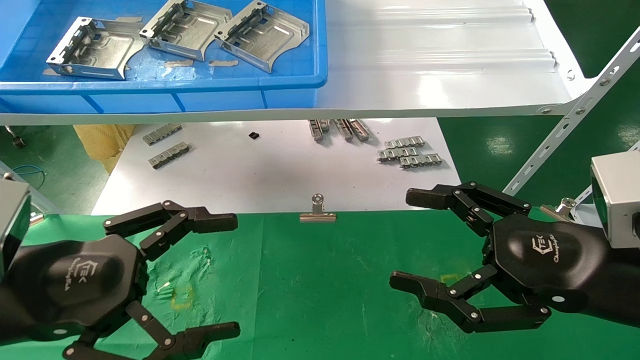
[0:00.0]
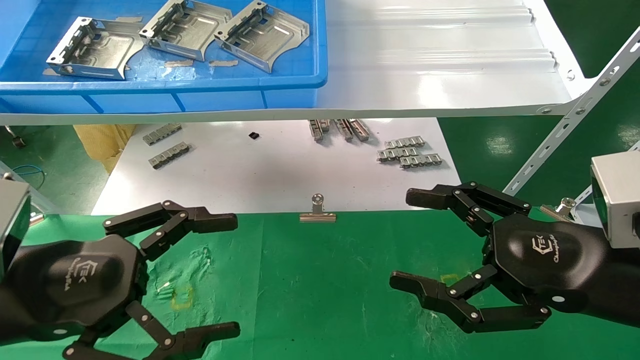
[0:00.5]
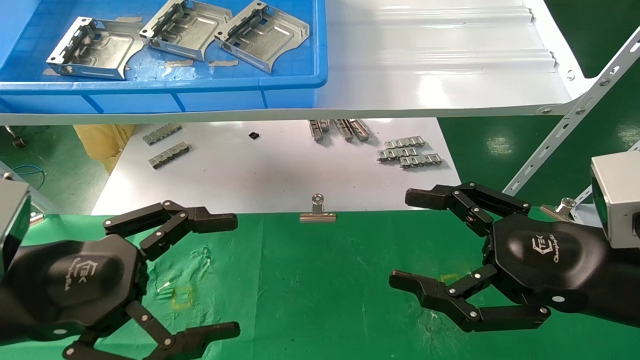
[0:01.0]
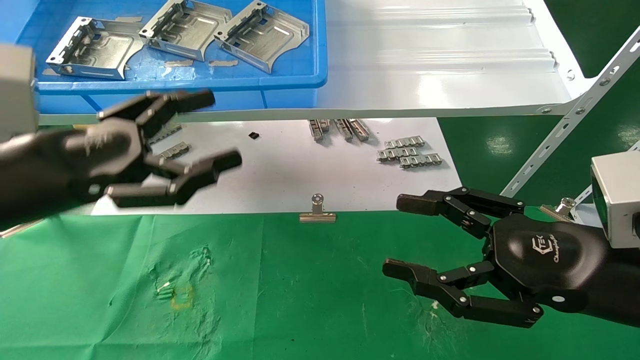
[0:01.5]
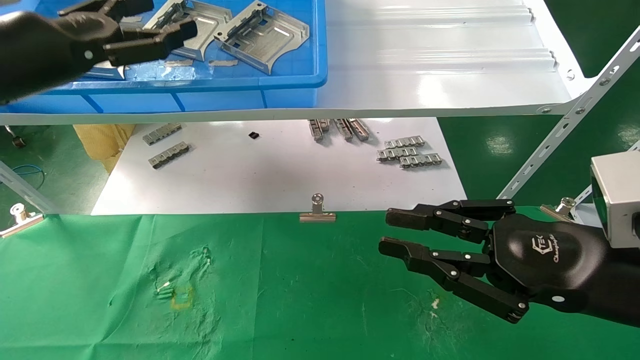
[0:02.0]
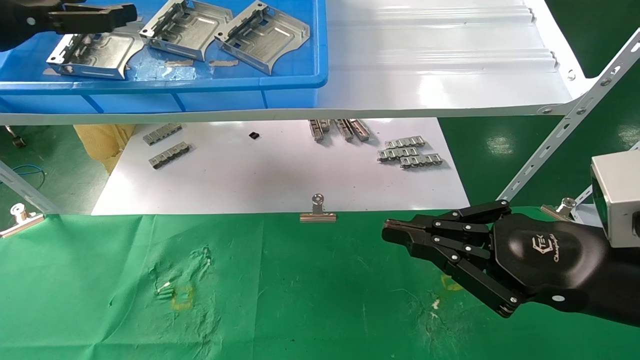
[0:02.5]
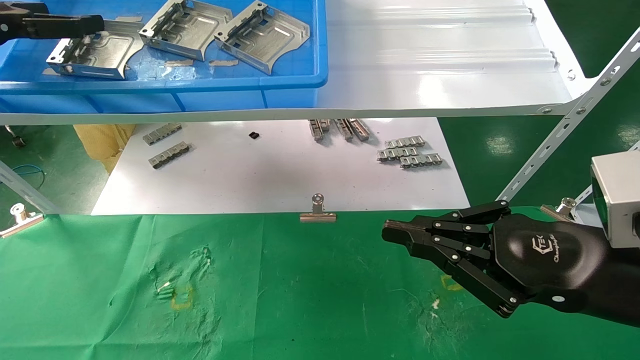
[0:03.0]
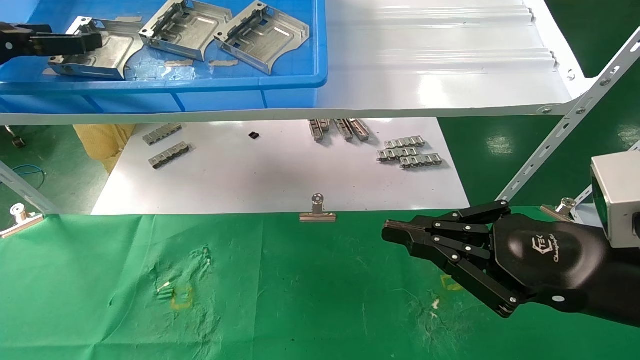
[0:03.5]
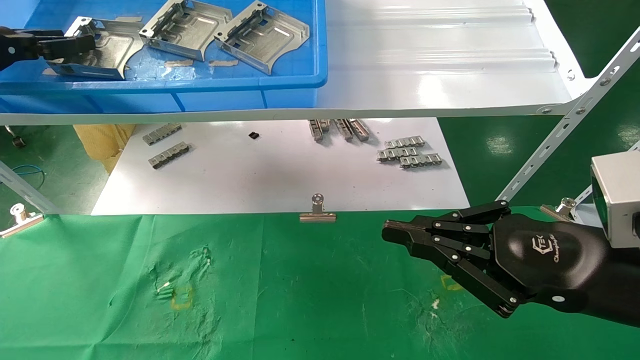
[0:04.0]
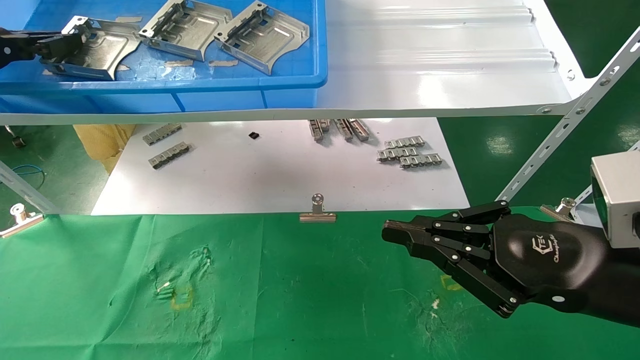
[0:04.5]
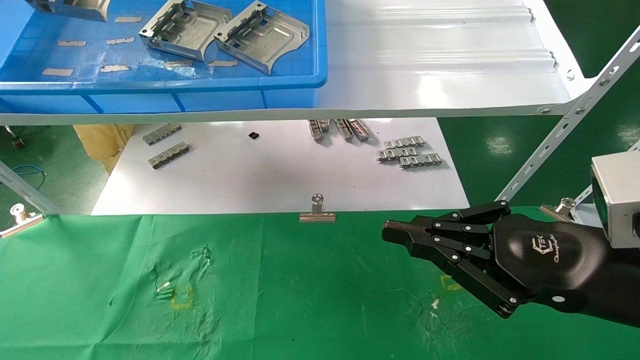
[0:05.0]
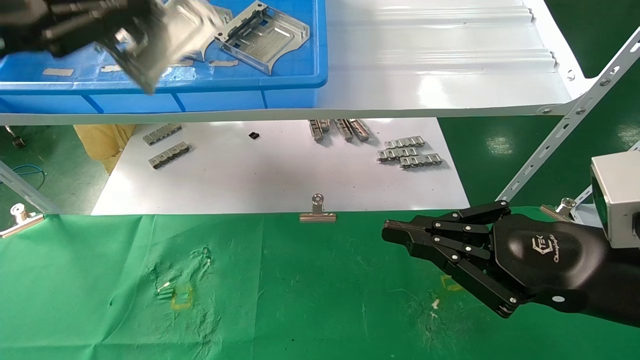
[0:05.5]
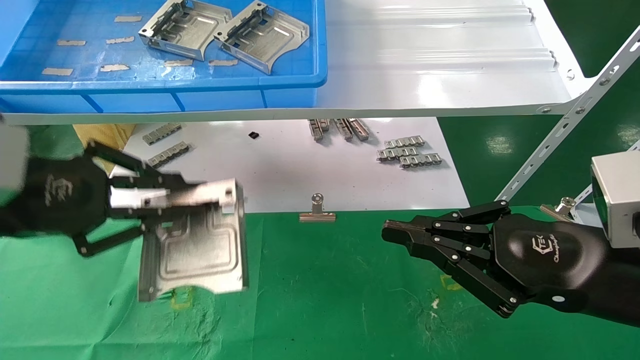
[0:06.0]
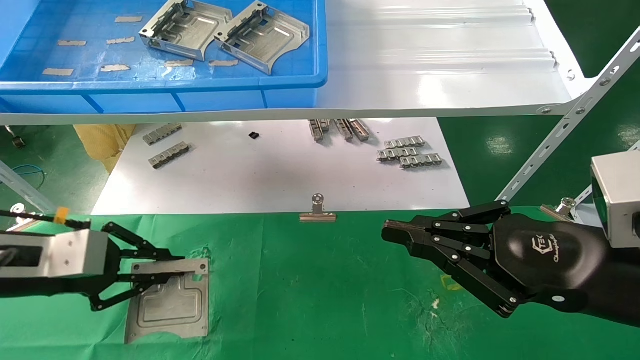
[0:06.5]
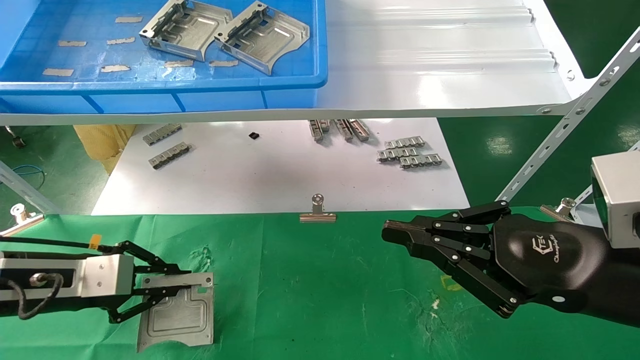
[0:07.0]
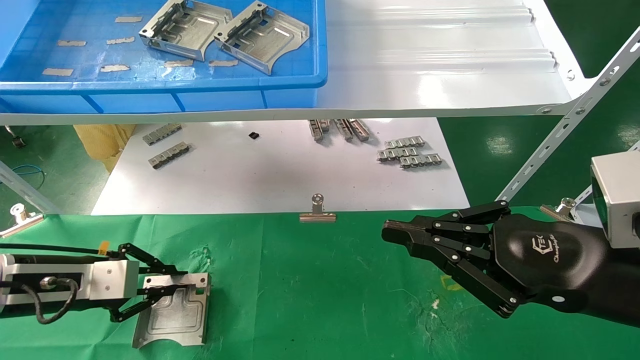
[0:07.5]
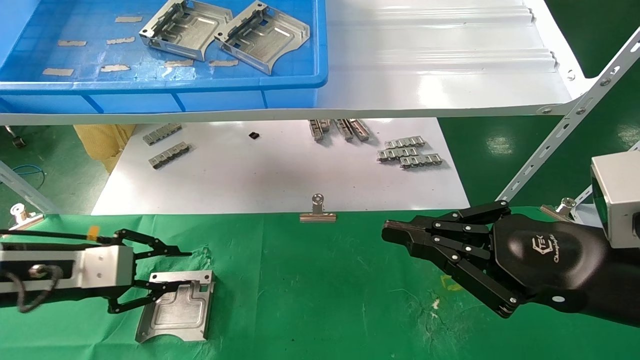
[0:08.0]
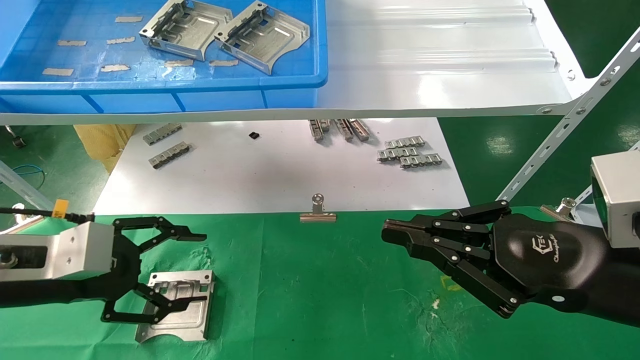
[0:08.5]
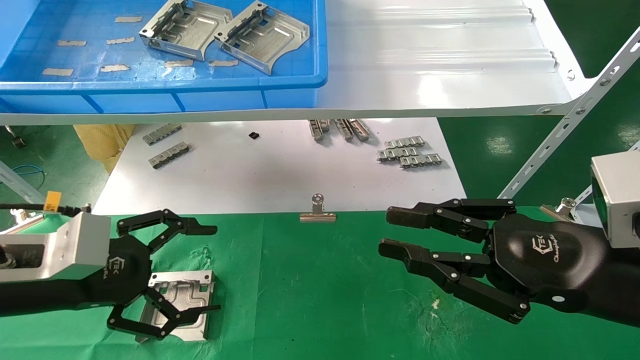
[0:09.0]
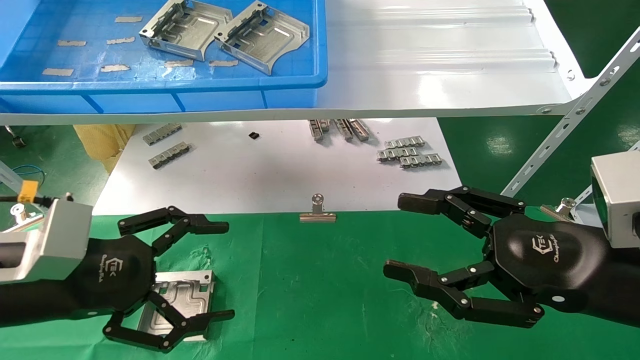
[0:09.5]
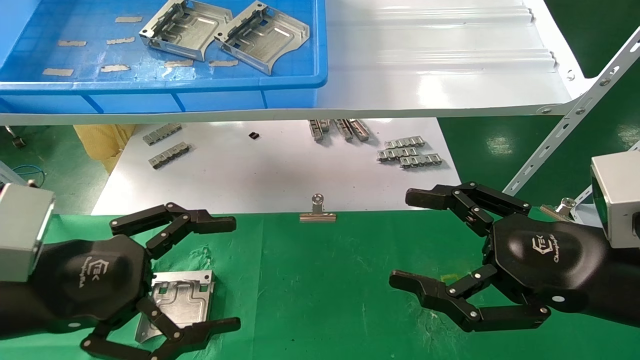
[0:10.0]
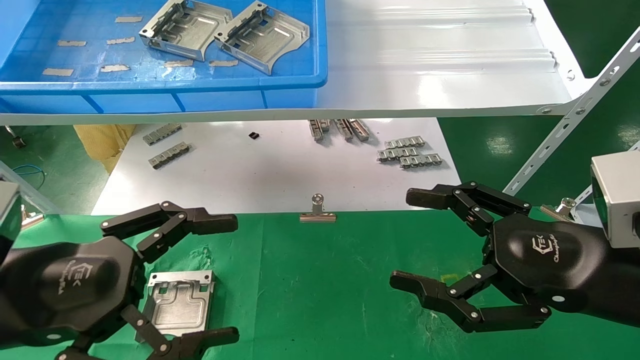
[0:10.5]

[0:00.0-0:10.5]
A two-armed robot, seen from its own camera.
Task of the whole recording: use the mechanical arm to pick up the parts and place them on the table.
Step, 0:01.5 to 0:04.5: Pick up the hard drive bracket from the feeding area.
Step, 0:05.0 to 0:07.5: Place the hard drive bracket into the box.
0:00.0 to 0:02.0: The right gripper closes; the left gripper moves upward and forward, roughly 20 cm.
0:02.0 to 0:04.0: The right gripper closes. Meanwhile the left gripper is displaced to the left by approximately 10 cm, and closes up.
0:04.0 to 0:06.5: The left gripper moves downward, about 20 cm, and closes.
0:06.5 to 0:08.5: The left gripper opens up.
0:08.5 to 0:10.5: The right gripper opens its fingers, while the left gripper shifts roughly 10 cm backward and to the right, and opens up.
